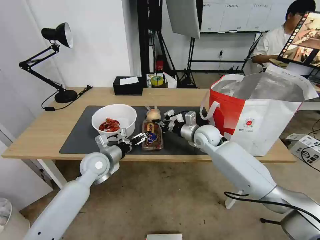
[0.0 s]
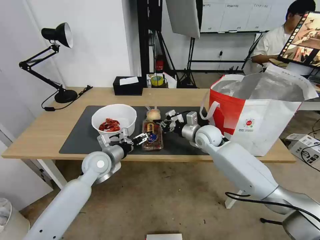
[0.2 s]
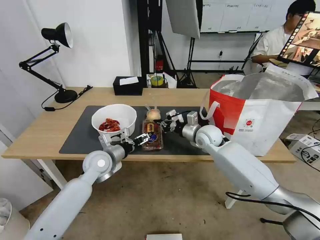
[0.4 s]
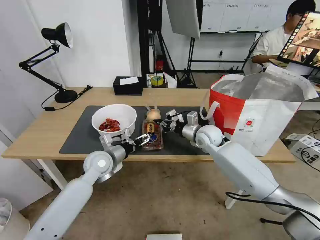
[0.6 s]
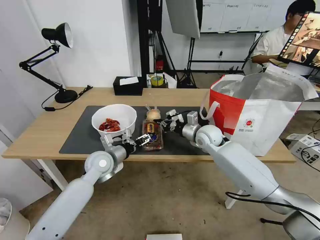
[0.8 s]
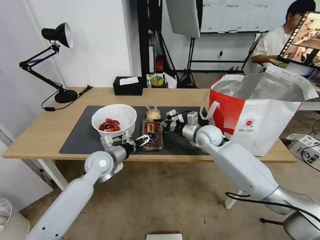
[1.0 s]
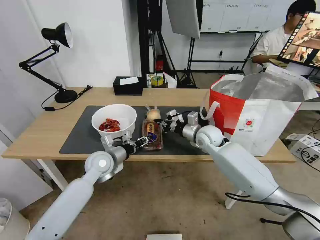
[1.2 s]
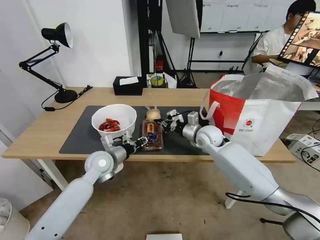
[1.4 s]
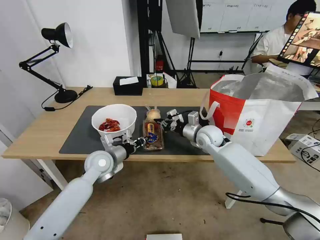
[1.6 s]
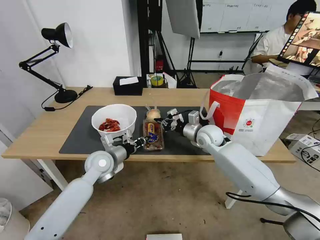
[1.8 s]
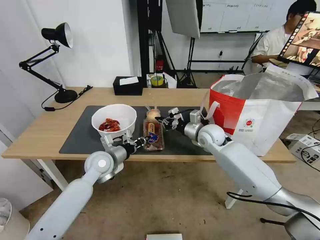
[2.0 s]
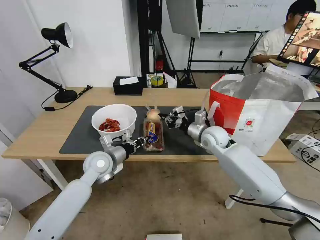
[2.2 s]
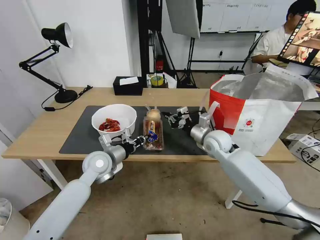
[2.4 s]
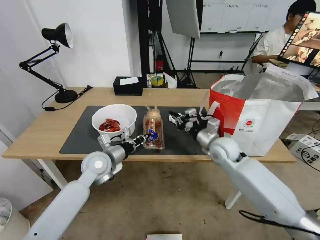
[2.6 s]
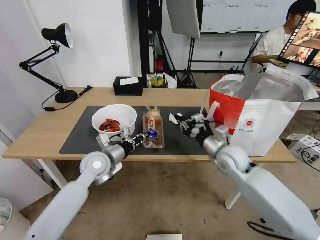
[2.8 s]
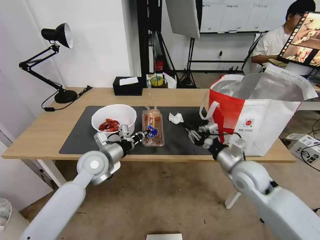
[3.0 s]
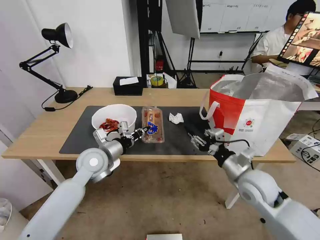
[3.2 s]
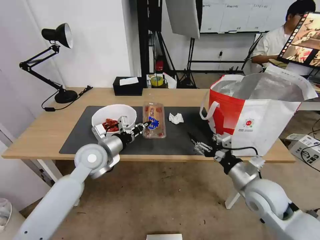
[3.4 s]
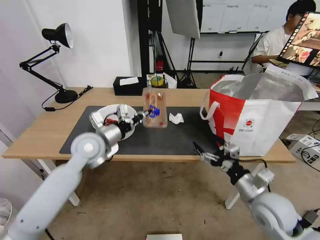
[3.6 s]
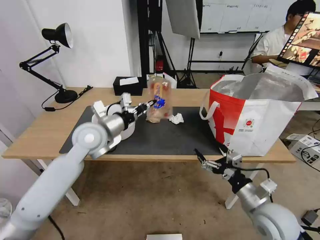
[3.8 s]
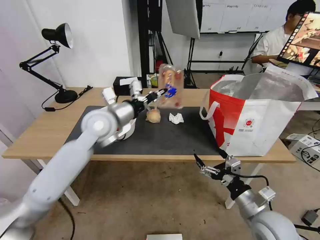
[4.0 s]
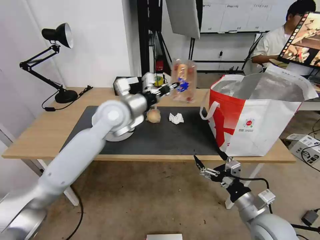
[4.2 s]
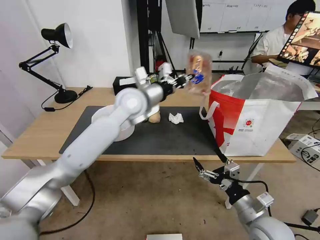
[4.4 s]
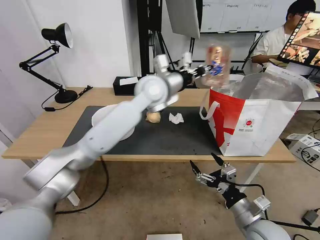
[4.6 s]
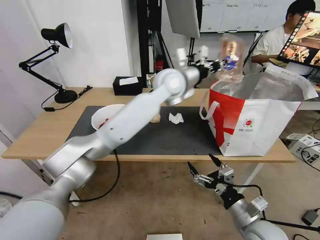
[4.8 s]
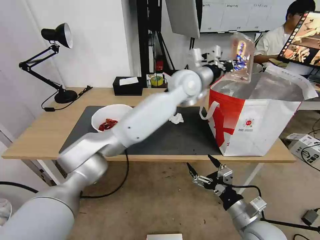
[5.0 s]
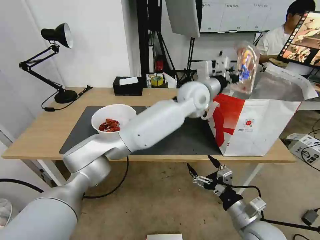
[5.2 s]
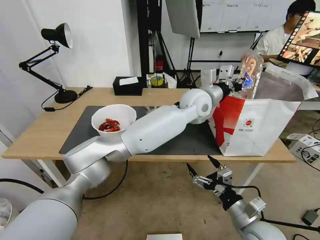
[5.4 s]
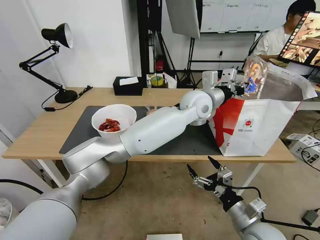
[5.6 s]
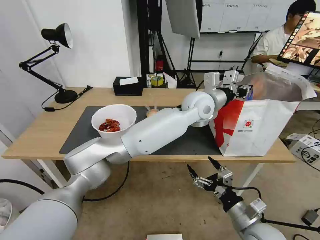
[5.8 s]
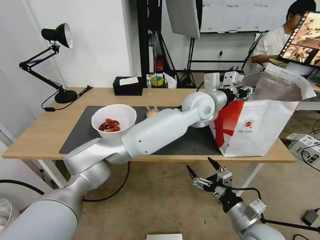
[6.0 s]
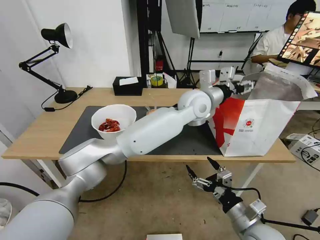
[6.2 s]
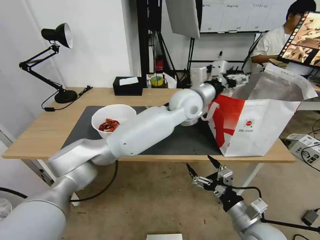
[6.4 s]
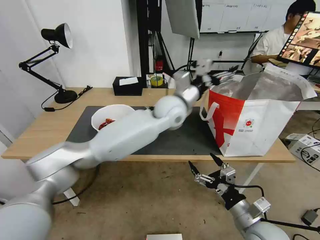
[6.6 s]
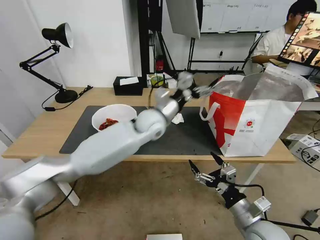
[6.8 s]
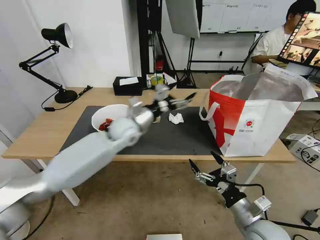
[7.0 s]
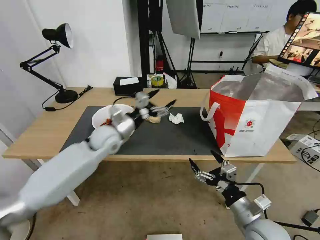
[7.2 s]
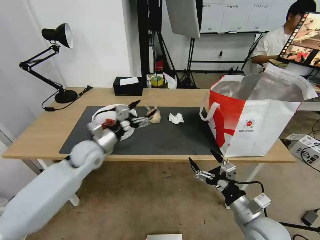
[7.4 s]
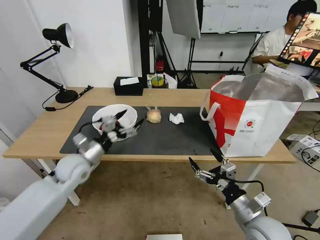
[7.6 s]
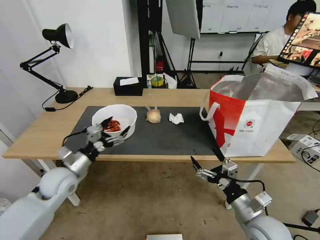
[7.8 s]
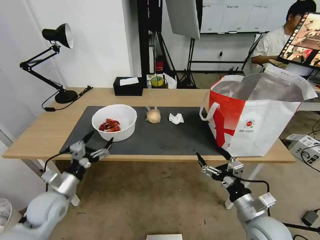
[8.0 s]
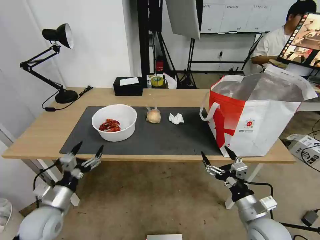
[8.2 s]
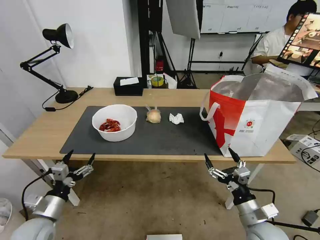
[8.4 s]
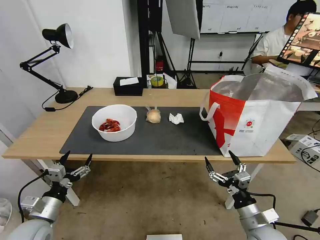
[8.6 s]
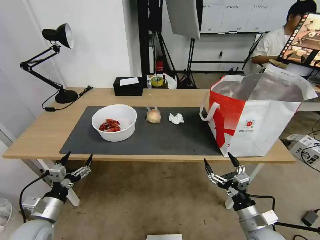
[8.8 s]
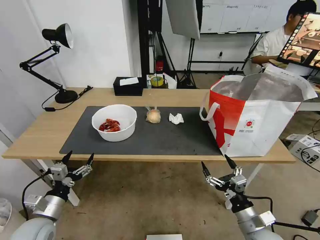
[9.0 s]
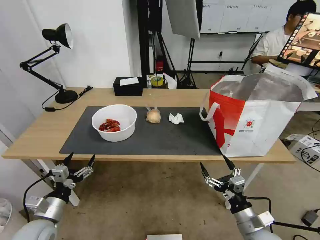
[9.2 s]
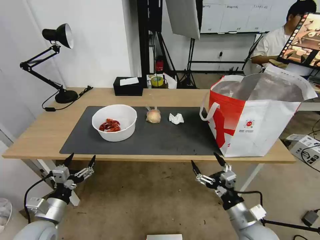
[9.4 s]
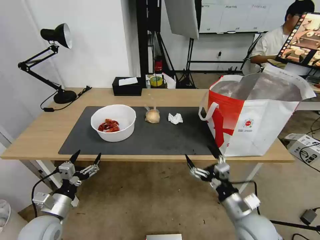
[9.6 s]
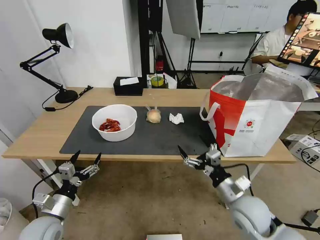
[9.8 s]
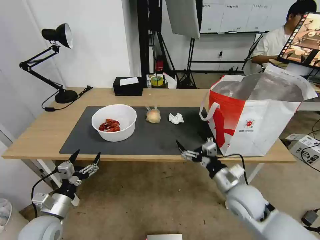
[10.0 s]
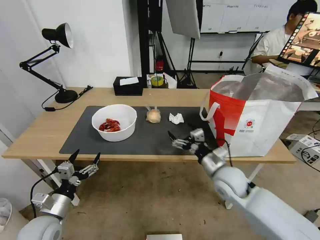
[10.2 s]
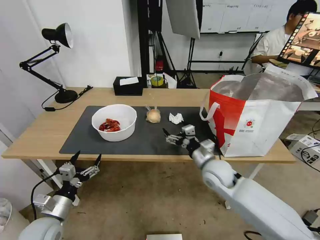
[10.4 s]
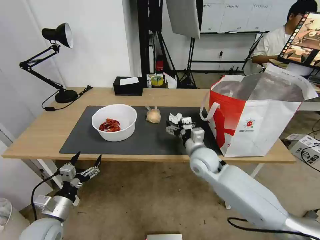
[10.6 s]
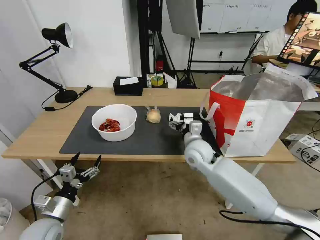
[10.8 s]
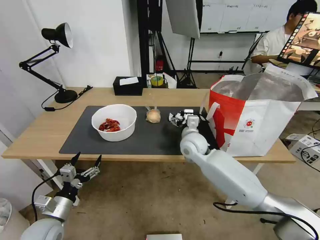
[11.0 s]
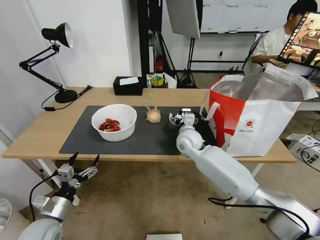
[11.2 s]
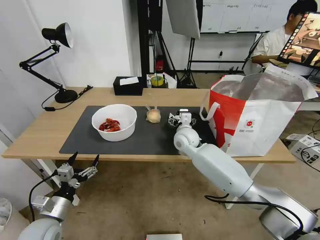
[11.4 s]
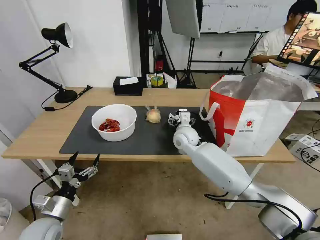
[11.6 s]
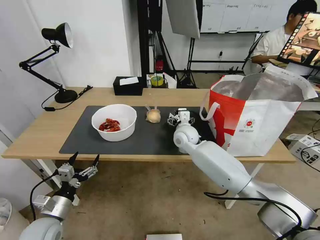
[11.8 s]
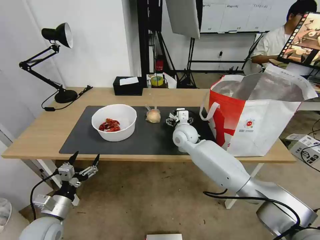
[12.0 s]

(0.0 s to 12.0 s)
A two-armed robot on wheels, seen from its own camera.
Task of the whole recording: Pick up the trash from the table and place it into the takeout bag.
0.0 s - 1.6 s: The left gripper closes.
1.6 s - 3.0 s: The right gripper heads backward and to the right, covering approximately 20 cm.
3.0 s - 4.4 s: The right gripper heads backward, covering roughly 15 cm, and opens; the left gripper goes some 25 cm upward, to the right and forward.
4.4 s - 6.0 s: The left gripper shifts roughly 20 cm to the right, and opens up.
6.0 s - 7.6 s: The left gripper moves to the left and downward, approximately 40 cm, and opens its fingers.
7.6 s - 9.0 s: The left gripper shifts some 20 cm backward, downward and to the left. Meanwhile the right gripper shifts some 5 cm downward.
9.0 s - 10.4 s: The right gripper moves forward and to the left, about 20 cm.
10.4 s - 12.0 s: The right gripper heads forward and to the left, covering approximately 15 cm.

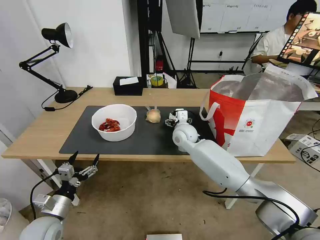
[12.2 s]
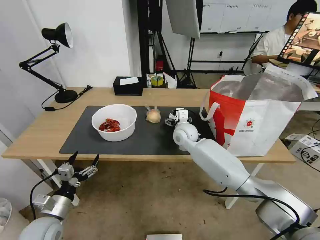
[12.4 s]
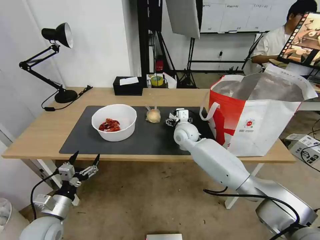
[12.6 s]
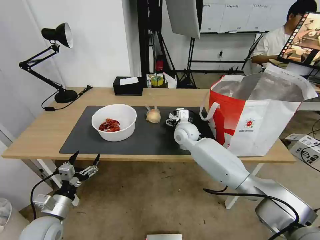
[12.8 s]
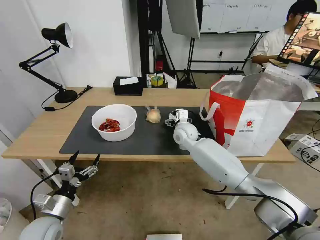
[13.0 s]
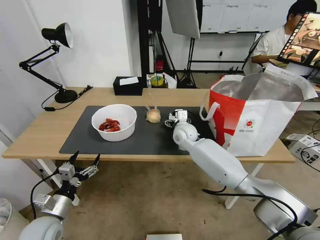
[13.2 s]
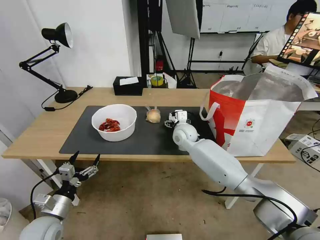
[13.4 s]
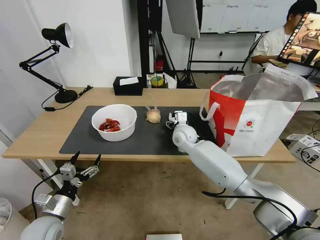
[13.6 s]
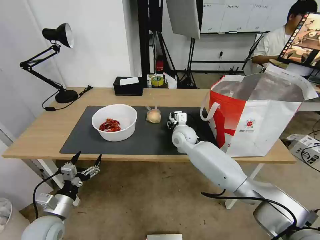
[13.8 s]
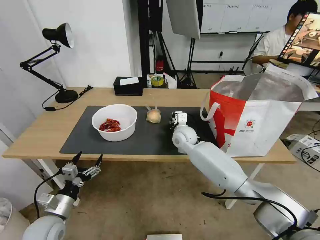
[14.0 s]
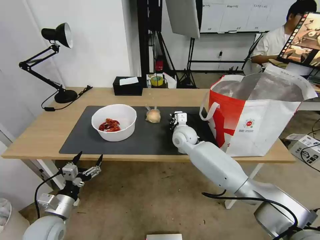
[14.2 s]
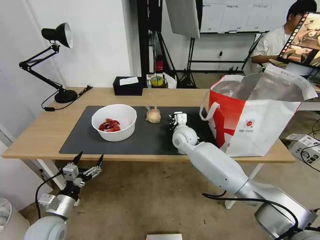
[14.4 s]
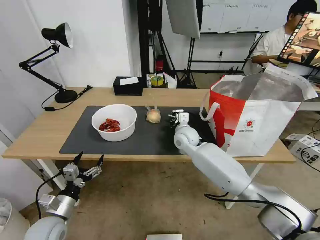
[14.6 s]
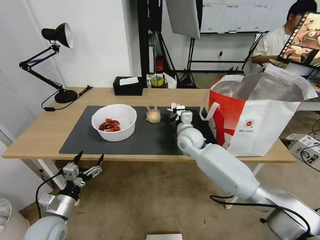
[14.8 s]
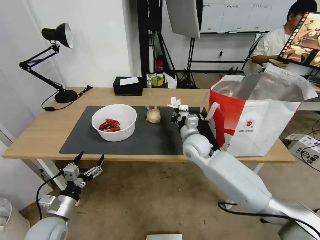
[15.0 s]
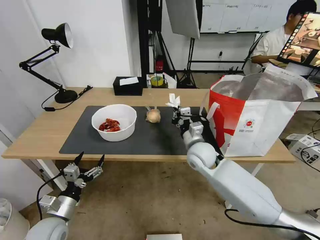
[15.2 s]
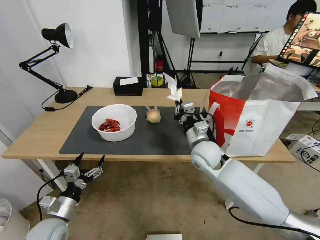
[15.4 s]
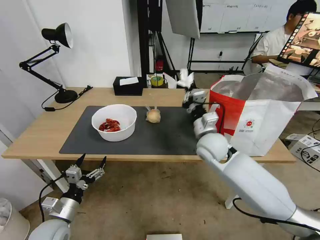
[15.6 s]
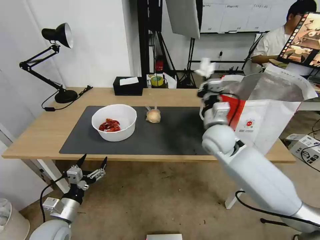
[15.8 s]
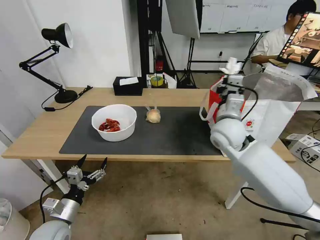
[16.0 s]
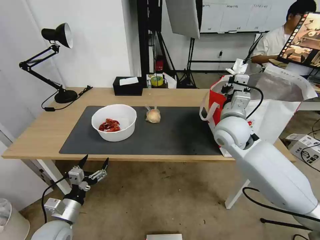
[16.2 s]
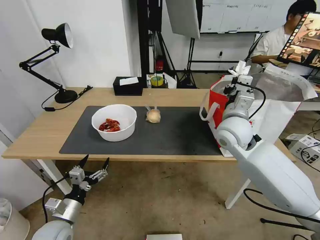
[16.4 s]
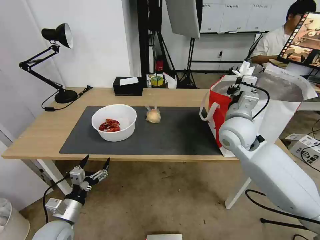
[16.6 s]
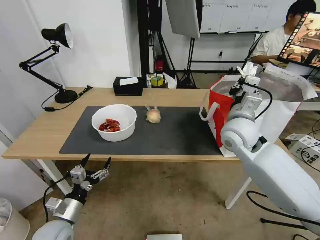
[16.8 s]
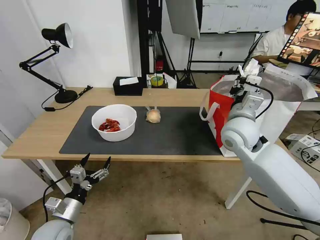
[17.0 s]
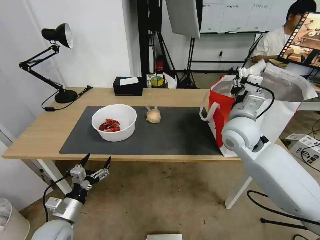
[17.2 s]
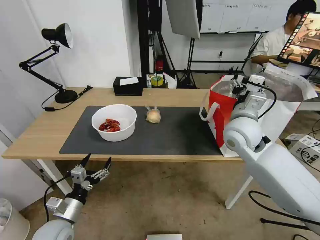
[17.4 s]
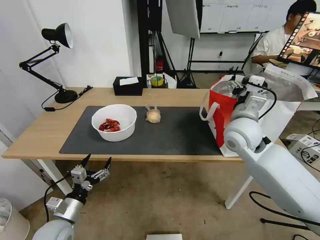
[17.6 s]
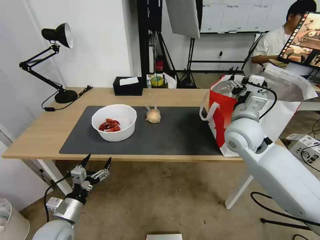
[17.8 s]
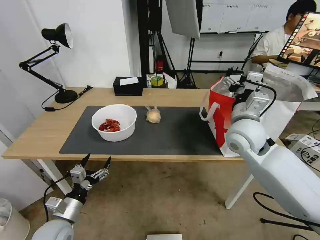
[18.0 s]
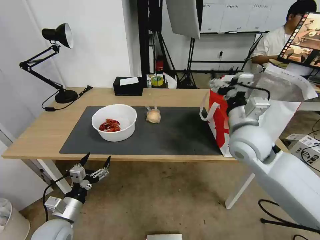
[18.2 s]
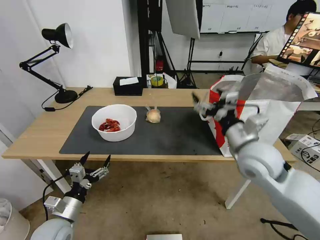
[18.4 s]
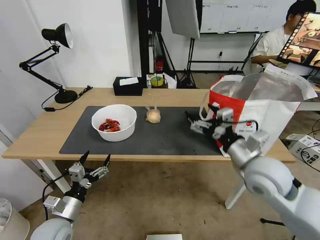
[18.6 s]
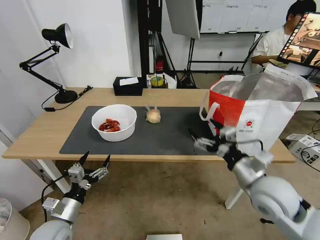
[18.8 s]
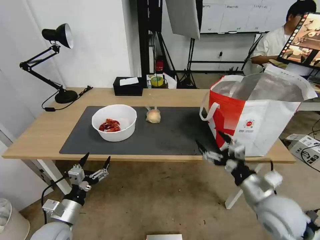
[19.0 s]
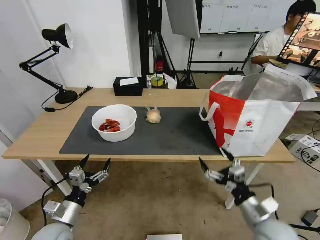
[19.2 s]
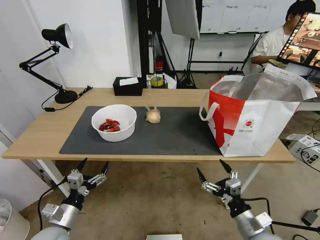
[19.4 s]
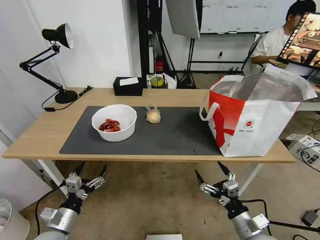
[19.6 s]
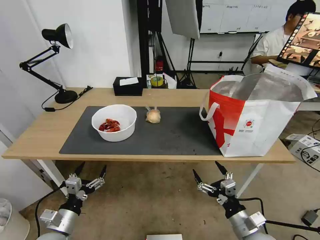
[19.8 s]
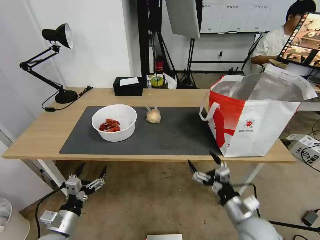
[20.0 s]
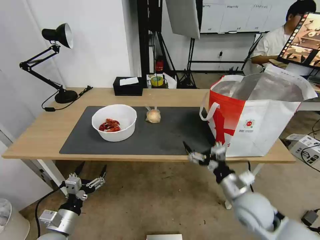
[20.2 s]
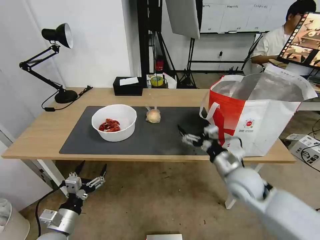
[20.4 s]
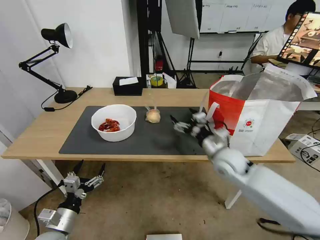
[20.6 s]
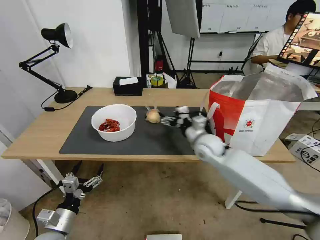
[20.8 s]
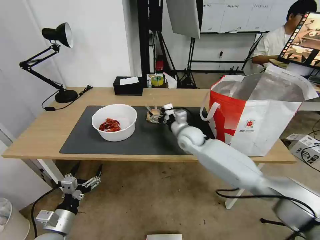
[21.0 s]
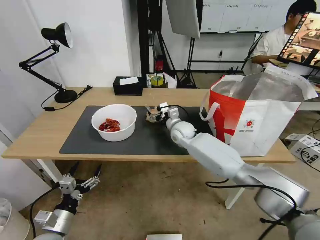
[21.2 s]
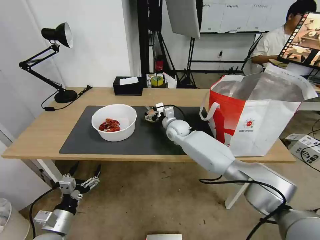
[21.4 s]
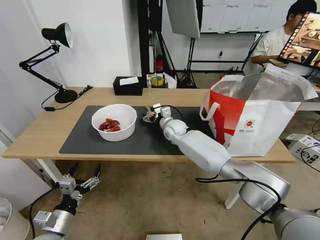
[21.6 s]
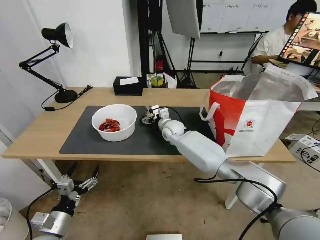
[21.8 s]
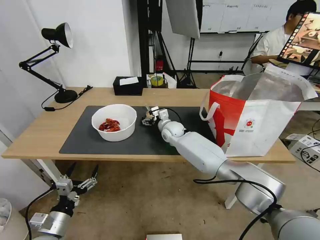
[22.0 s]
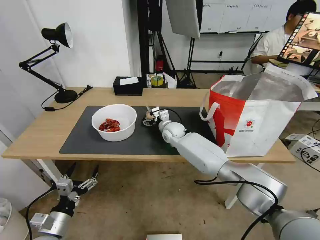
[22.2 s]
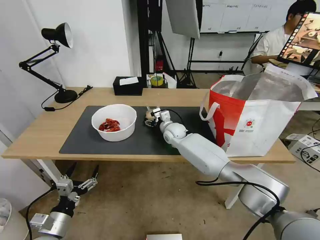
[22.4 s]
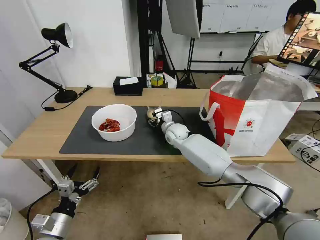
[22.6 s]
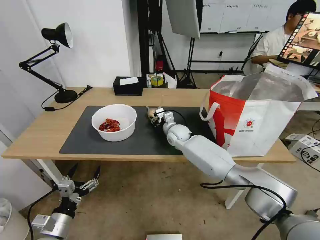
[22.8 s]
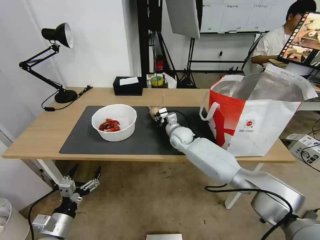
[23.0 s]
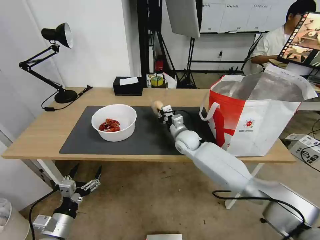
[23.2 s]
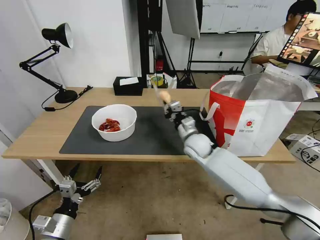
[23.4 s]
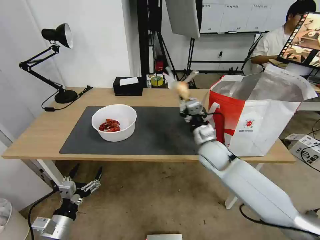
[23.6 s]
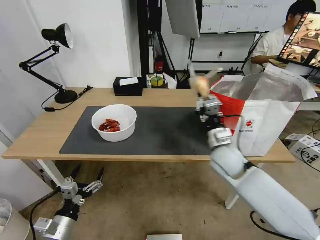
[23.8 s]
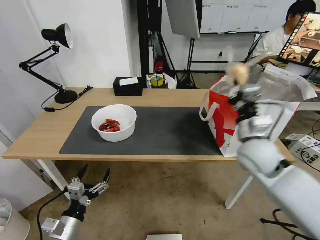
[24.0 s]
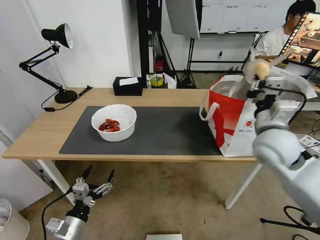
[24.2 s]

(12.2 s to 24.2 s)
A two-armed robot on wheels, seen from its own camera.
Task of the whole recording: Pick up the trash from the table and place it into the takeout bag.
12.2 s - 13.8 s: The right gripper closes up.
13.8 s - 15.2 s: The right gripper is displaced backward by roughly 10 cm, and closes.
15.2 s - 16.6 s: The right gripper moves upward and to the right, roughly 15 cm.
16.6 s - 18.2 s: The right gripper opens.
18.2 s - 19.8 s: The right gripper shifts some 30 cm downward and backward.
19.8 s - 21.2 s: The right gripper moves forward and to the left, roughly 40 cm.
21.2 s - 22.6 s: The right gripper closes up.
22.6 s - 24.2 s: The right gripper heads backward, to the right and upward, covering some 35 cm, and closes its fingers.
